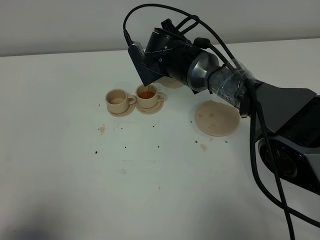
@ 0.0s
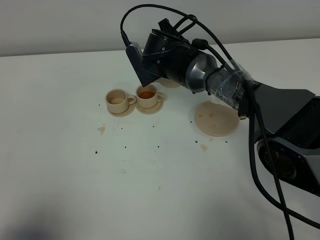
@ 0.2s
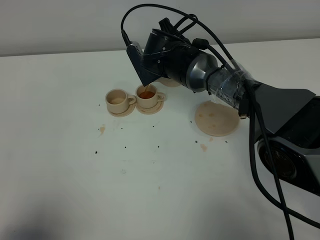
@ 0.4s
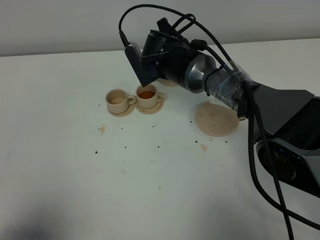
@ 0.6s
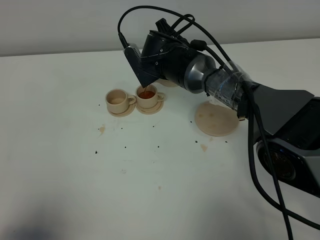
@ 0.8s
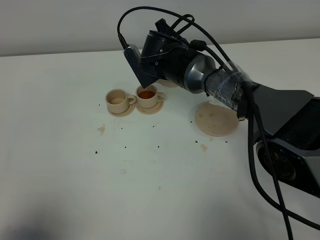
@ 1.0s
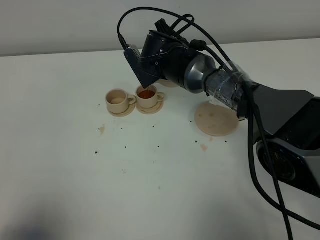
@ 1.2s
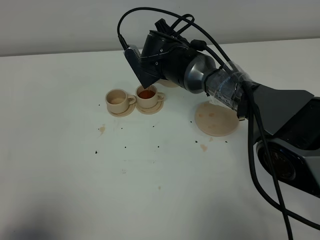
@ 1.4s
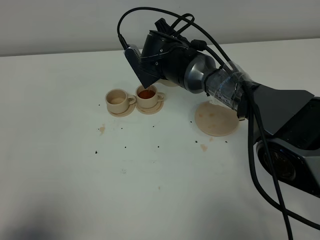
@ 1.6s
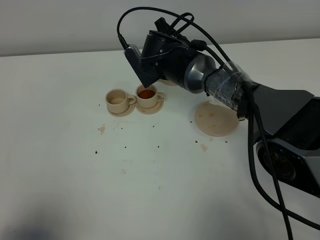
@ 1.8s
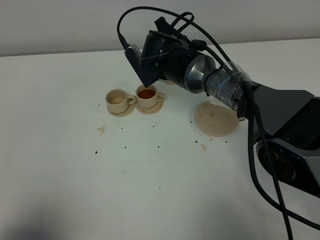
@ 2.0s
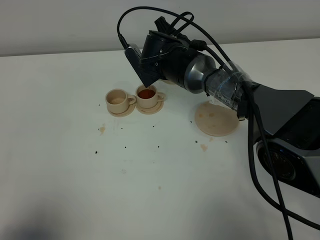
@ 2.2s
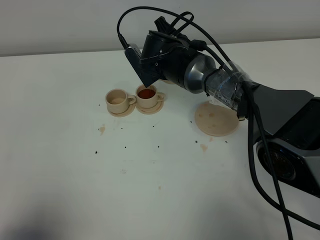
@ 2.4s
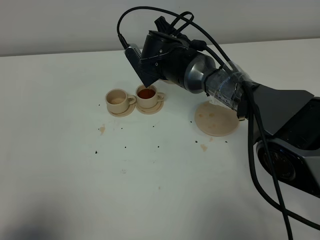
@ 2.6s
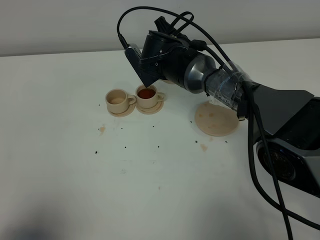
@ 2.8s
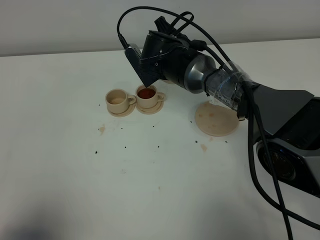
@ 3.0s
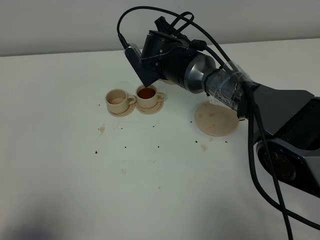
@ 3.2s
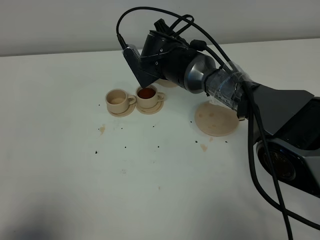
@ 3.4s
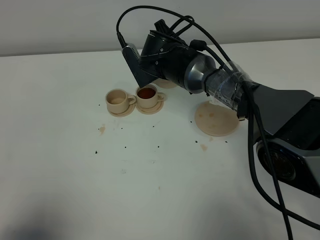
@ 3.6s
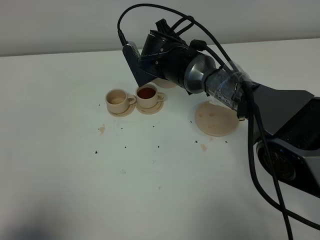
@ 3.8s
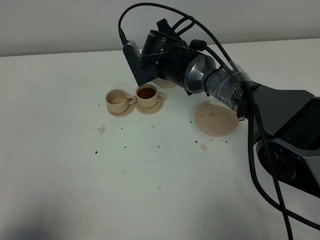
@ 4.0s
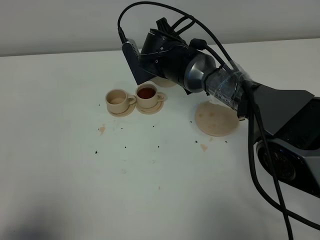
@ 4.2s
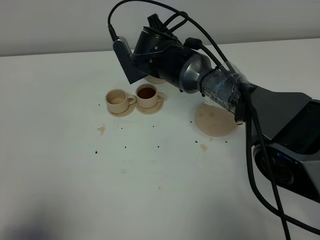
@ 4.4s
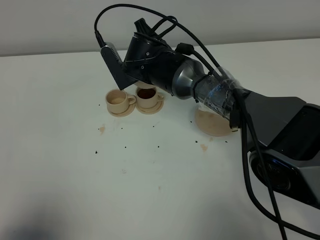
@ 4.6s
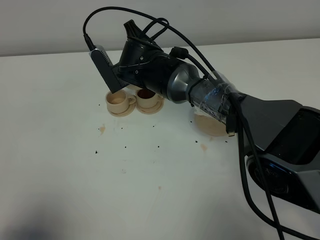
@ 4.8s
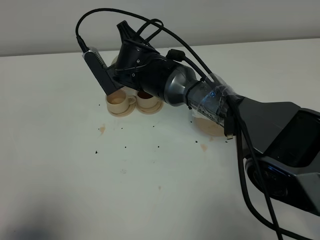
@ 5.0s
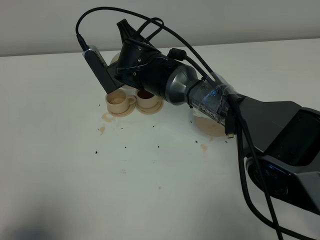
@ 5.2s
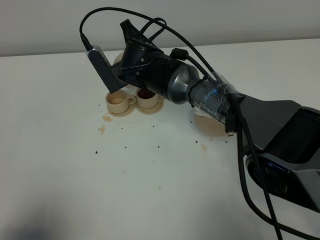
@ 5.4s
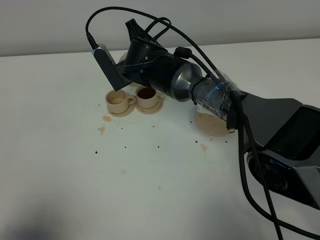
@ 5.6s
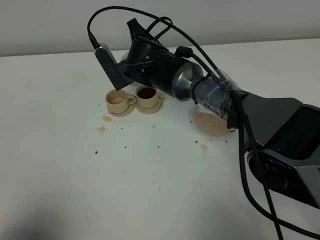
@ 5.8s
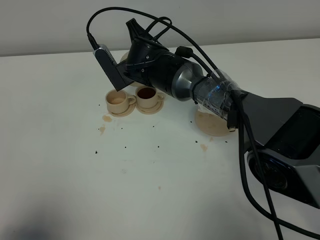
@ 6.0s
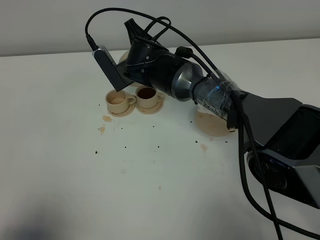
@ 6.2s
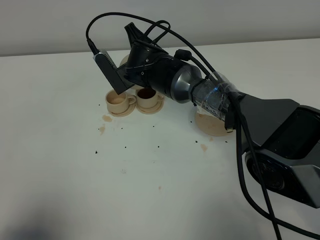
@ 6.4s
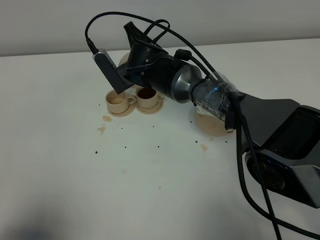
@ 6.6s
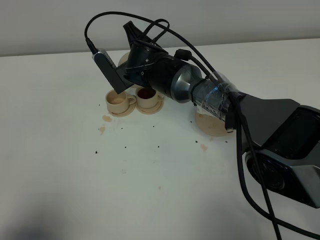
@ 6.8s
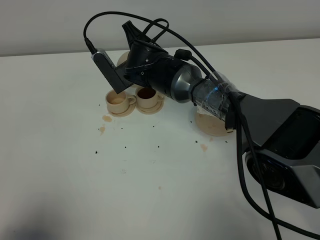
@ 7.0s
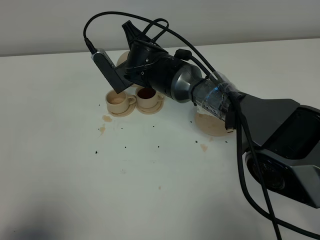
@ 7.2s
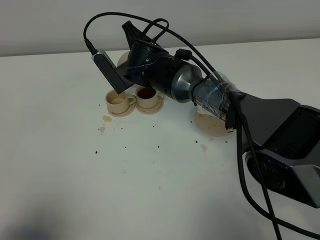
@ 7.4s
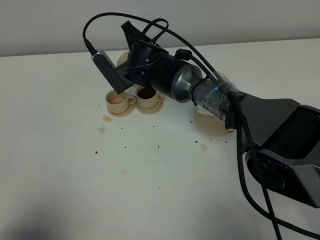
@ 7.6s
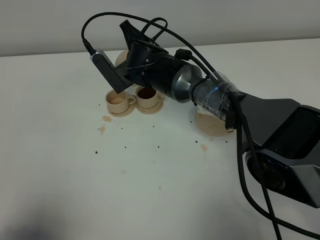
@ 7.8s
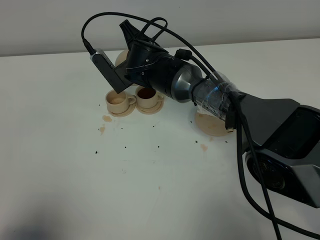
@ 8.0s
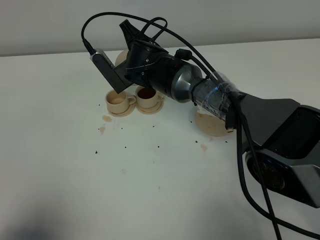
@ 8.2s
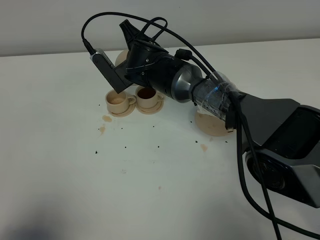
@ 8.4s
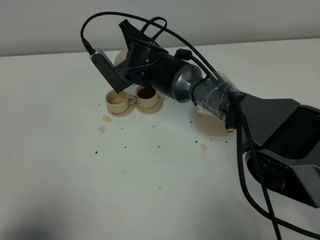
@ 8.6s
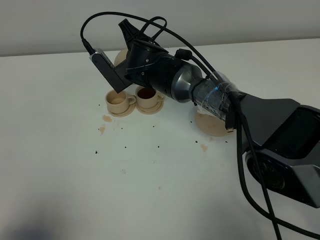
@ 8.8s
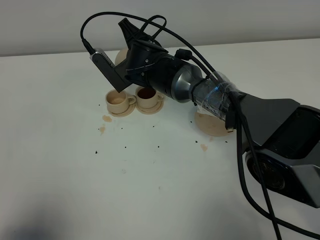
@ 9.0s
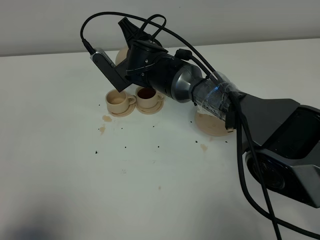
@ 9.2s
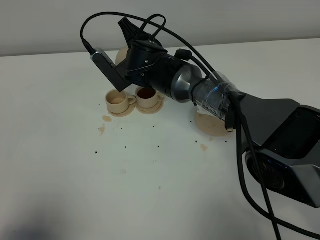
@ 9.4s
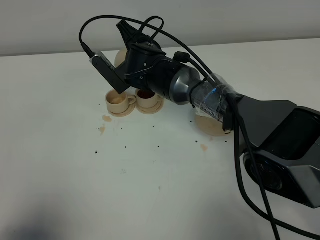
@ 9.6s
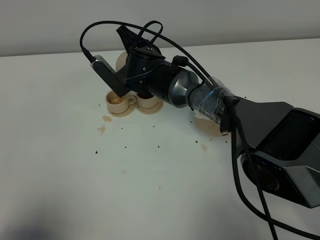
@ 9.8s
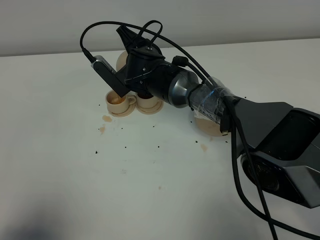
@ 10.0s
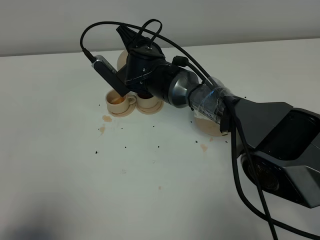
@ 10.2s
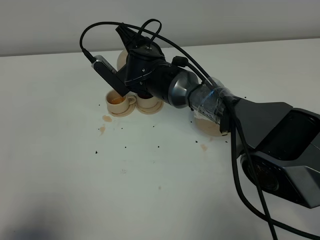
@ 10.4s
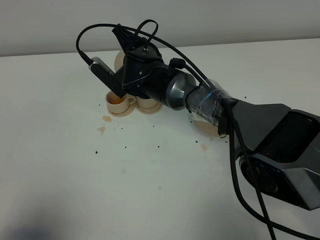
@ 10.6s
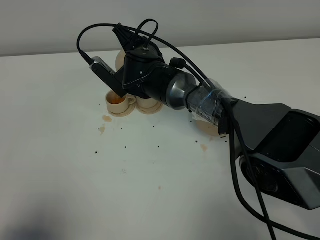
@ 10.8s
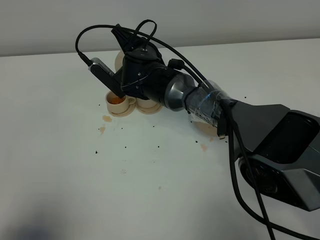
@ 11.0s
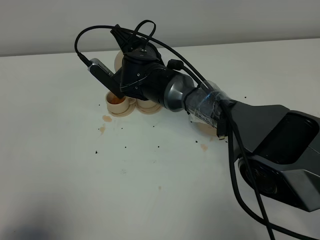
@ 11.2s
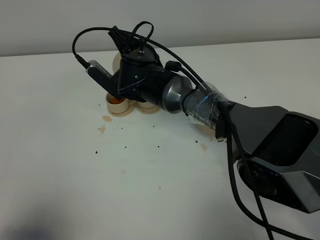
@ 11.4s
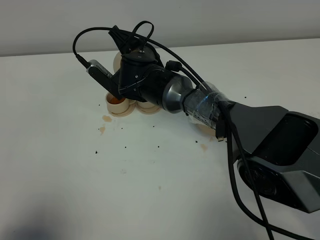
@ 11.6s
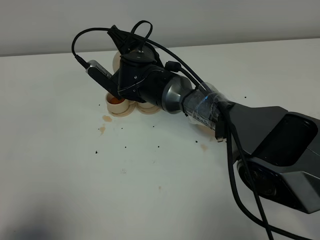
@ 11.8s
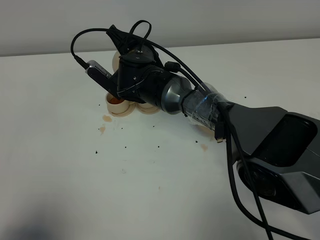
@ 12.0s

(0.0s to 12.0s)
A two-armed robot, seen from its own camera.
Task of the whole recording: grasp the brown teapot and pour the tea into the two brown teacups one by one, put the brown teapot back in its original place.
Step, 0.0s - 4.4s: Pour tea into the teacup with the right gripper.
0.0s - 1.6s: The grippers stay close to where they were, moving slightly.
1.6s - 3.0s: Neither gripper changes place.
3.0s - 4.4s: There are only small adjustments of the grippers.
4.4s - 6.0s: The grippers move only a little.
6.0s - 7.6s: Both grippers stay about where they are.
7.6s - 9.0s: The two grippers keep their place.
9.0s - 12.0s: There are only small adjustments of the grippers.

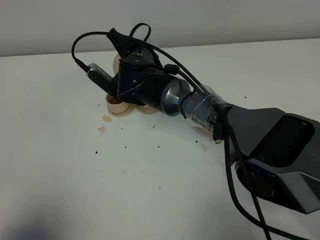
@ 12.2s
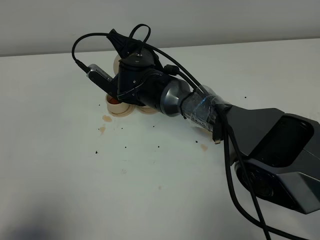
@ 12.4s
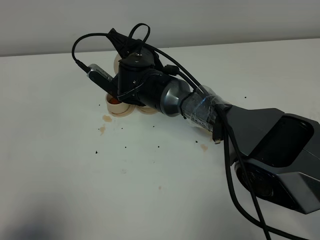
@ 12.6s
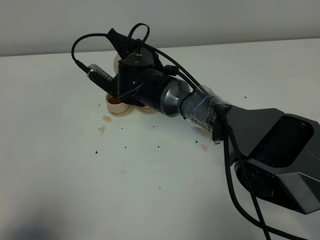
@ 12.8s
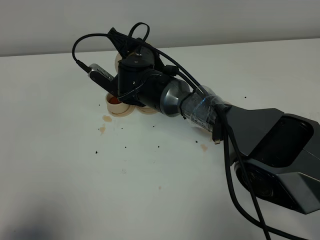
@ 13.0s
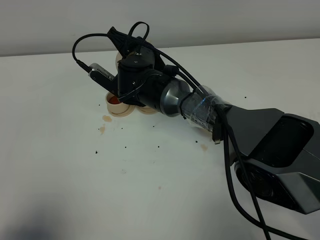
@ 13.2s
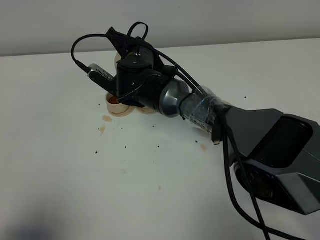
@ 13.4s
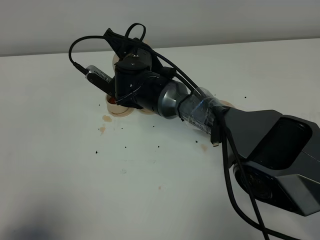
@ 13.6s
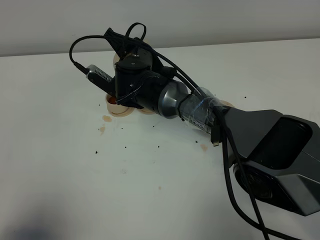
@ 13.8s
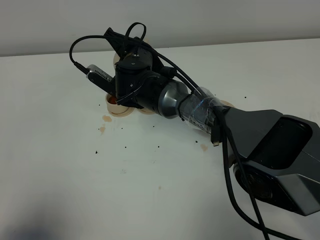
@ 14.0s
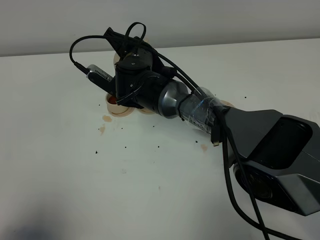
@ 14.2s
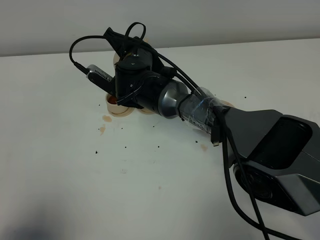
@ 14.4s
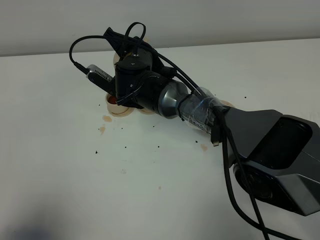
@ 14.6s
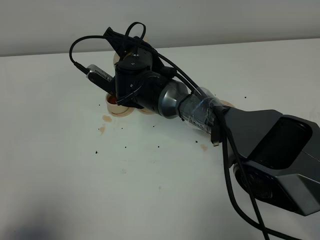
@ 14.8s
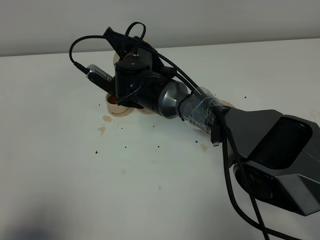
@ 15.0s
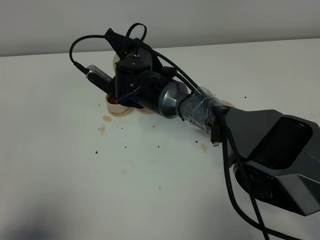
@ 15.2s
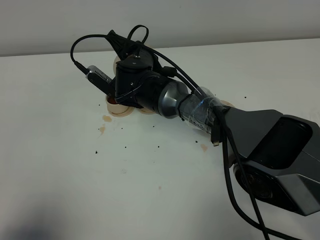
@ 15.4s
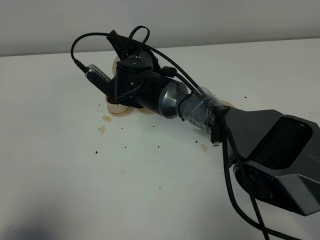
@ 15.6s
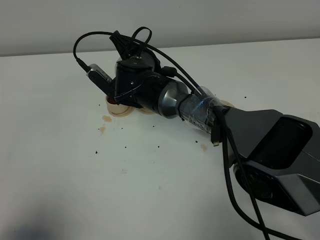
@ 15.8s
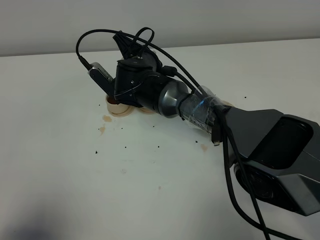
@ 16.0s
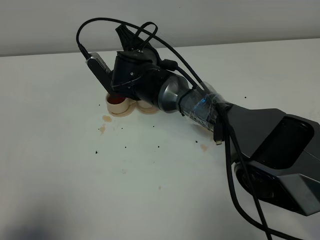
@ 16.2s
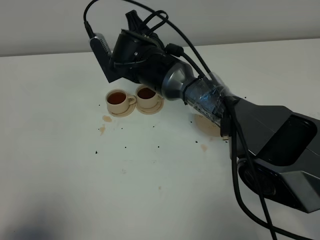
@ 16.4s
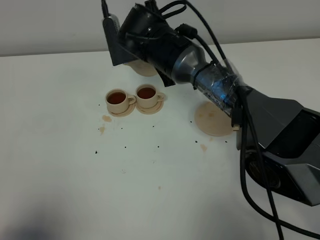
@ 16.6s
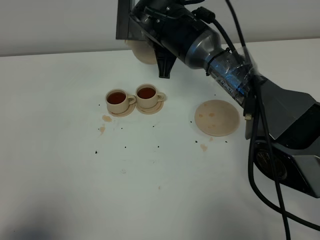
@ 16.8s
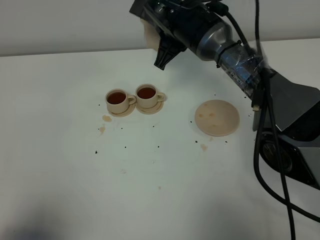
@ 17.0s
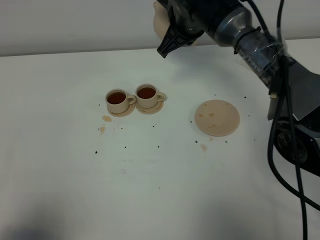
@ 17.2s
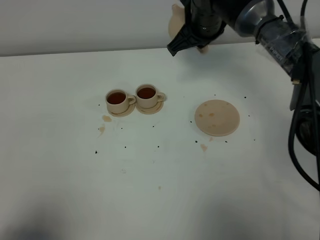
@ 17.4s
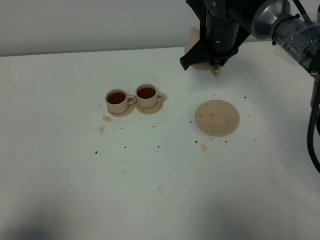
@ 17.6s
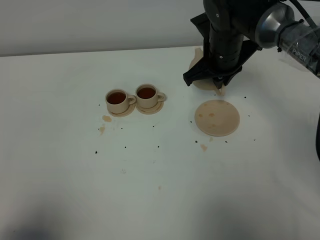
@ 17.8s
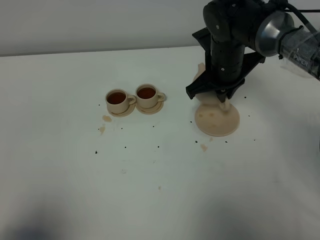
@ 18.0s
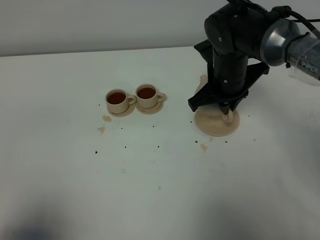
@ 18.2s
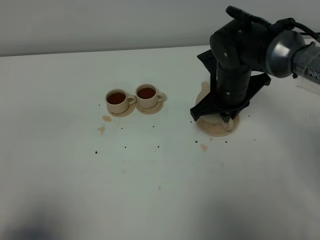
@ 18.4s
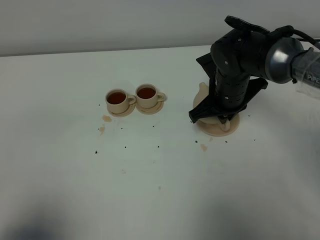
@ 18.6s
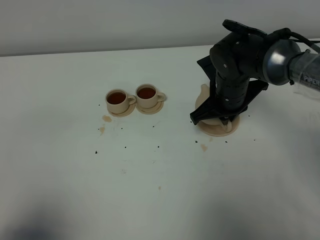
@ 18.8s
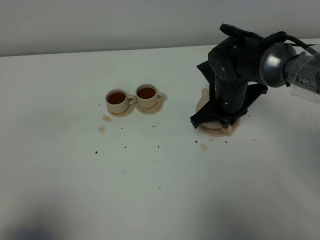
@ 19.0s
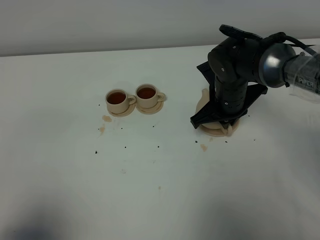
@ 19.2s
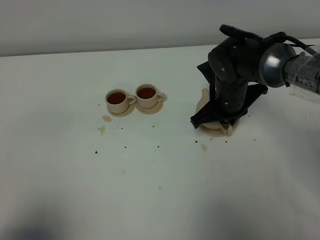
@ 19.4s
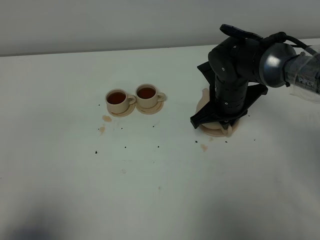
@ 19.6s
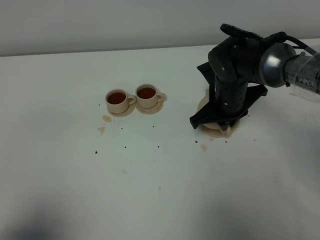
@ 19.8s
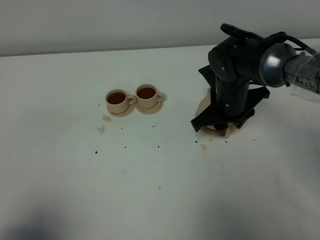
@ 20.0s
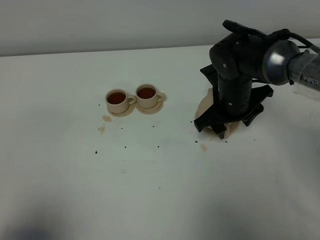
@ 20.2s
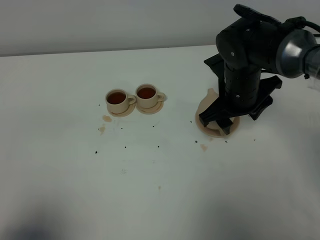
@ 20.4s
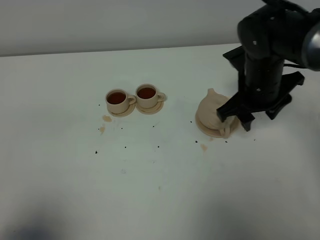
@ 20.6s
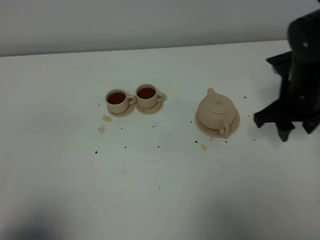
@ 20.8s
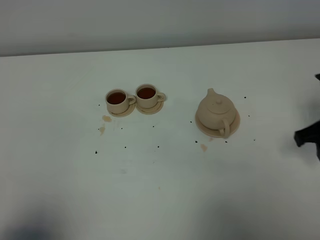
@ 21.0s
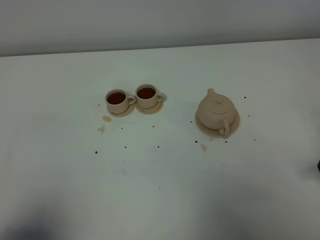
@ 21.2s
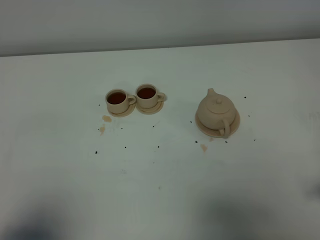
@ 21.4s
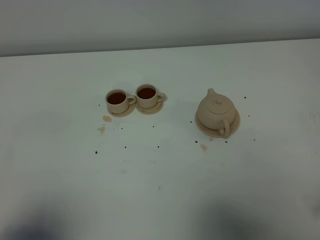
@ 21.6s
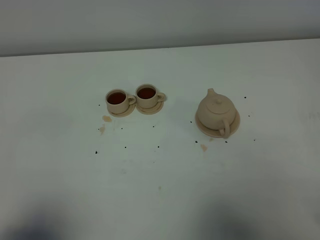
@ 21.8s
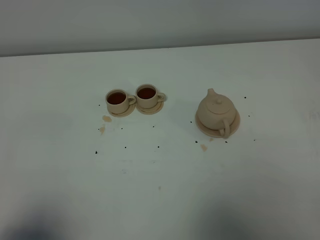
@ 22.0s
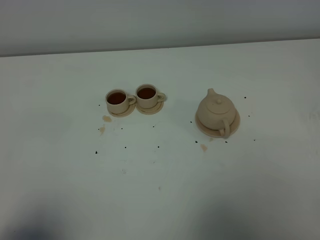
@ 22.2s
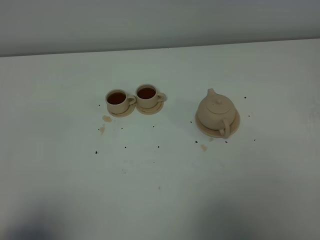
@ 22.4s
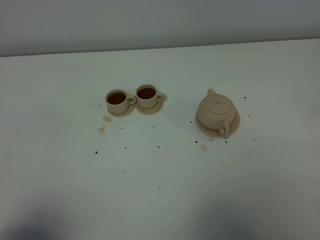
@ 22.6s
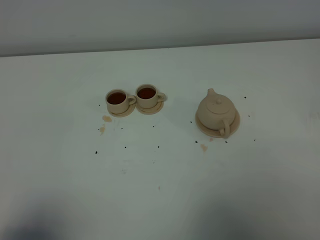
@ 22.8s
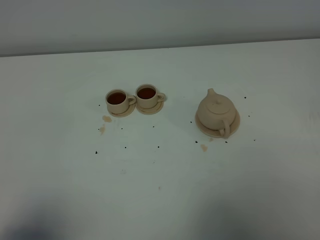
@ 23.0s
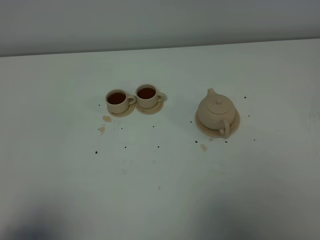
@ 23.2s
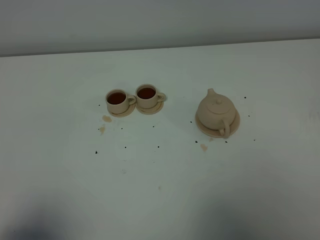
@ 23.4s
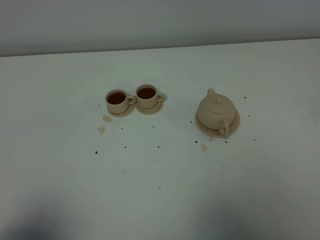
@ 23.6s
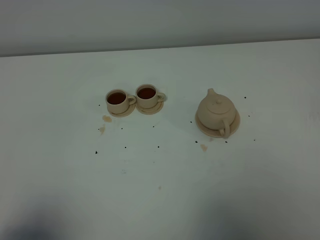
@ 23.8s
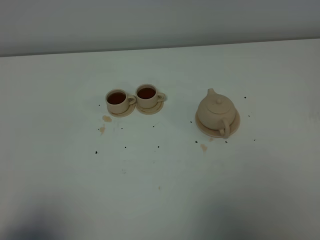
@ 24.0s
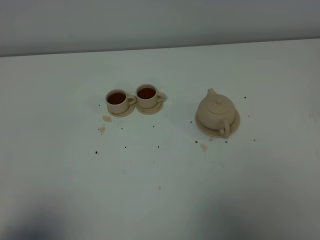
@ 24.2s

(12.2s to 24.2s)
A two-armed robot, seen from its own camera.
Task of the whole recording: grasp the brown teapot and pour the tea into the two brown teacups one by one, put the brown teapot back in its original place.
Step, 12.2s - 16.4s: Pour tea into the teacup with the right gripper.
12.2s - 13.8s: Both grippers stay about where they are.
13.8s - 15.2s: Both grippers stay about where they are.
15.2s - 16.6s: The right gripper shifts some 5 cm upward.
16.6s - 18.2s: The right gripper travels to the right by roughly 15 cm.
18.2s - 19.8s: The grippers move only a little.
19.8s - 21.2s: The right gripper goes approximately 25 cm to the right and backward, and opens.
